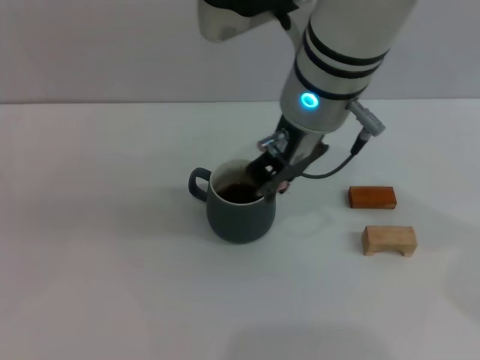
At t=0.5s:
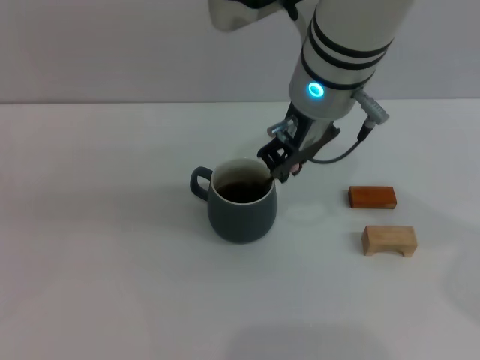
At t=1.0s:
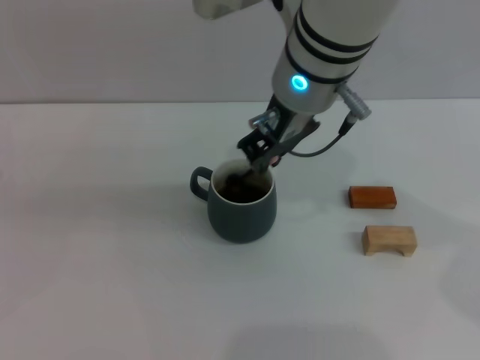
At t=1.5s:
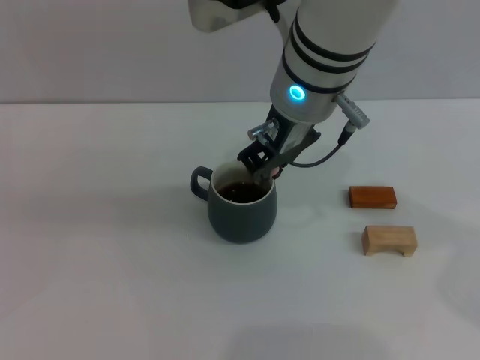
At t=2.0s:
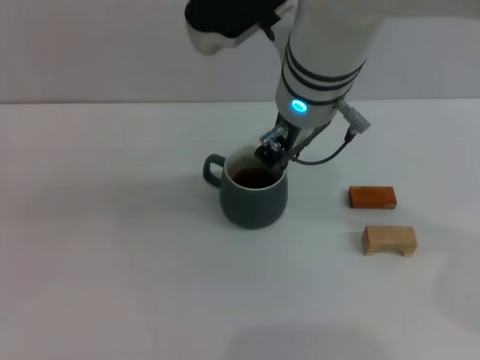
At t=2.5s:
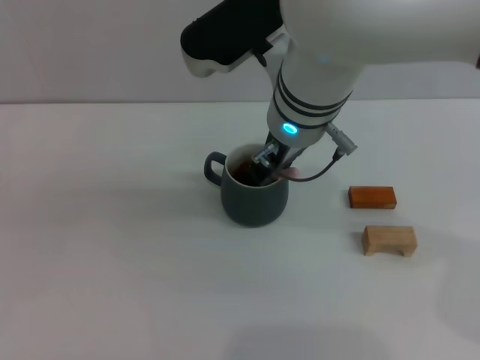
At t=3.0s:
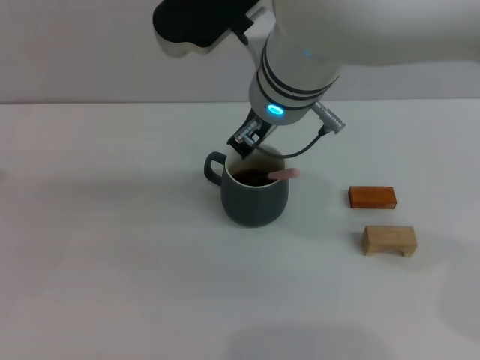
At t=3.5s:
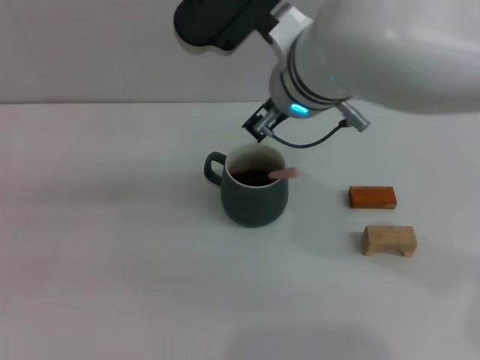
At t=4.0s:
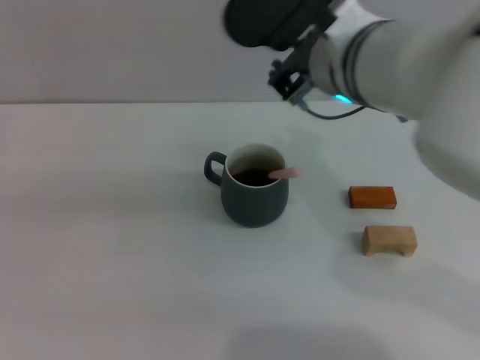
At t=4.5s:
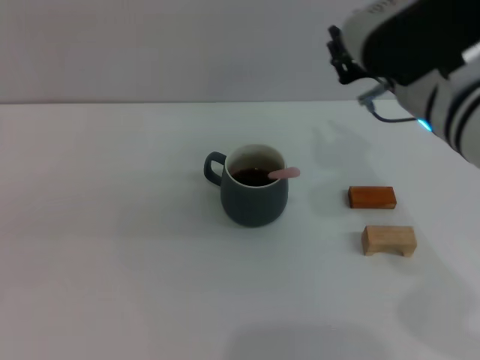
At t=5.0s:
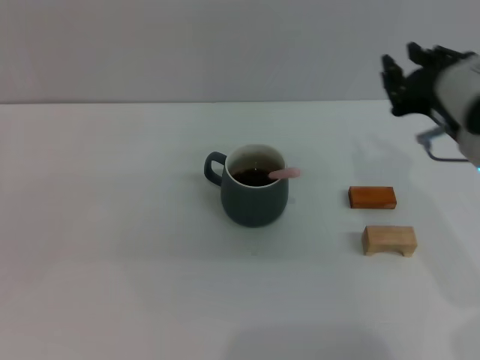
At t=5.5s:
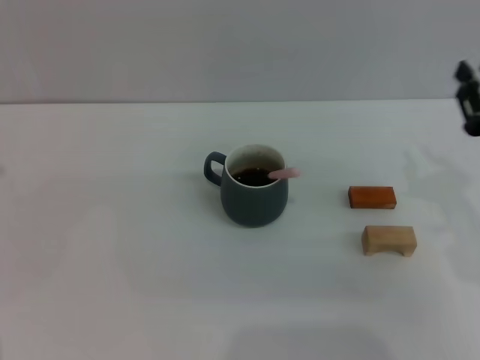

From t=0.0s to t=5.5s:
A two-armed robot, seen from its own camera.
Task of the whole recording: Move the grey cup to the center, lift the pink spoon, stir it three times in the cup, and put the spoon into the cup.
Step, from t=0.0s to t=3.0s: Stir the coffee in the cup with the right gripper.
From t=0.0s to t=2.0s: There are only small adjustments of the grippers.
From t=3.5s to t=5.5s: The right gripper heads to the right and downward, covering some 25 cm.
